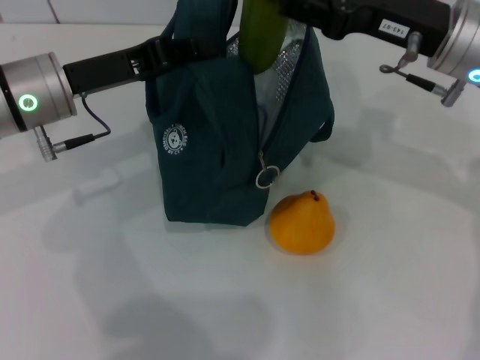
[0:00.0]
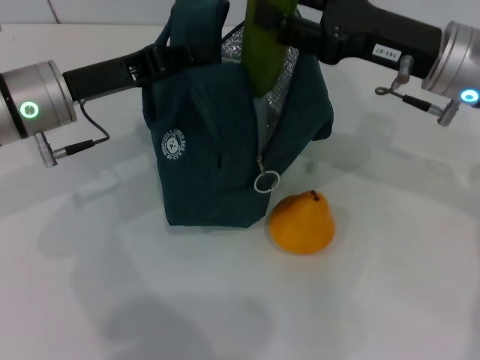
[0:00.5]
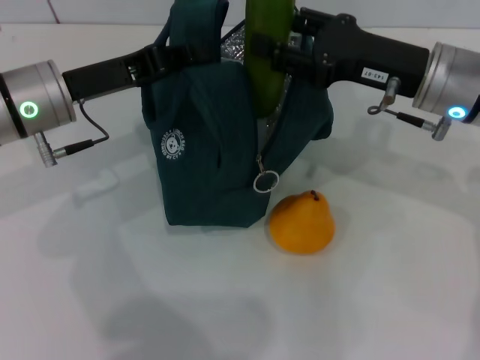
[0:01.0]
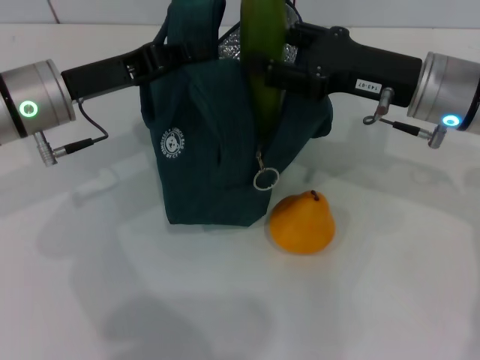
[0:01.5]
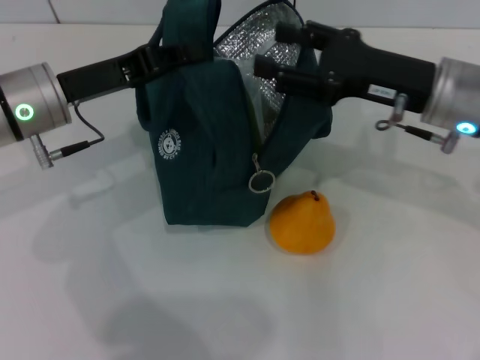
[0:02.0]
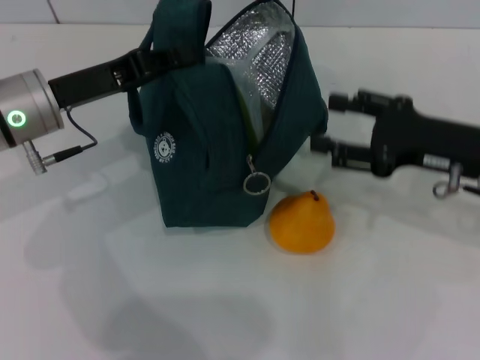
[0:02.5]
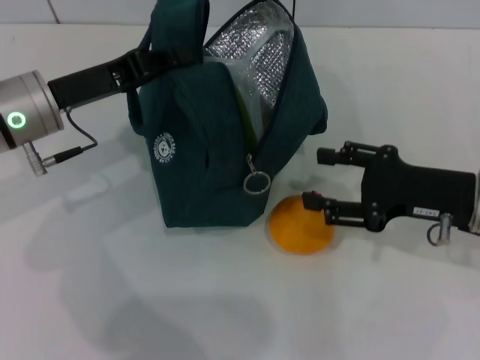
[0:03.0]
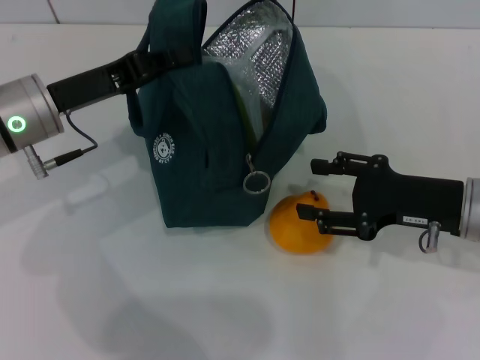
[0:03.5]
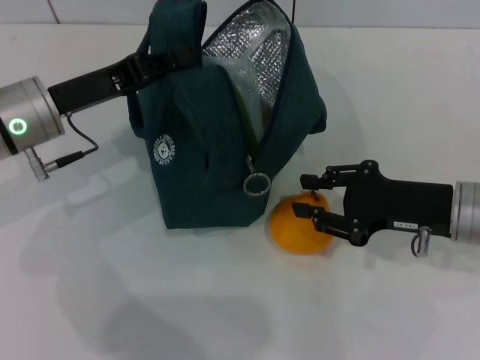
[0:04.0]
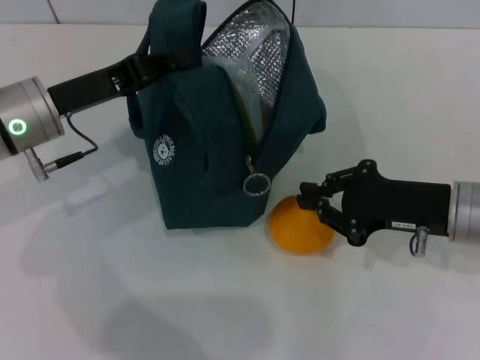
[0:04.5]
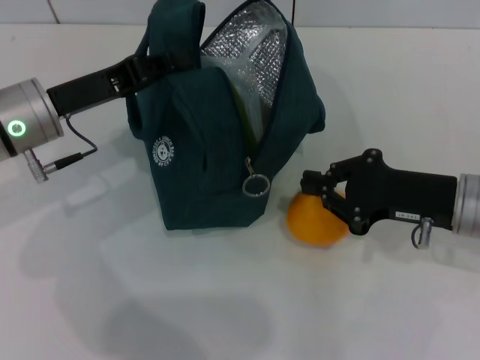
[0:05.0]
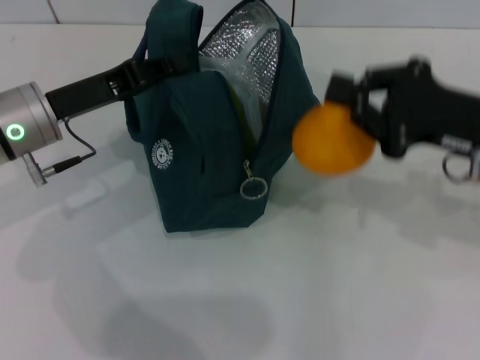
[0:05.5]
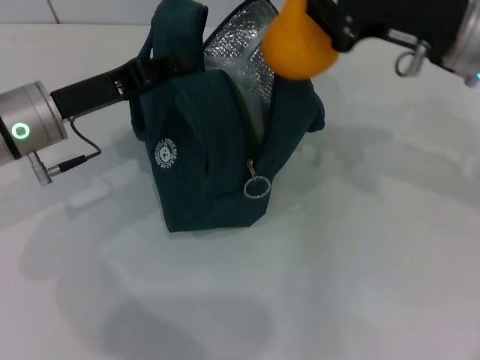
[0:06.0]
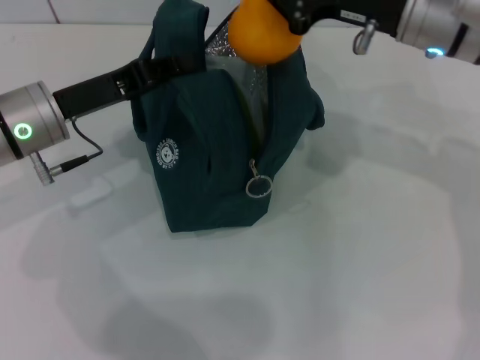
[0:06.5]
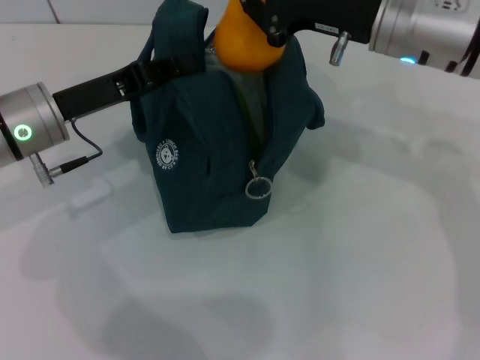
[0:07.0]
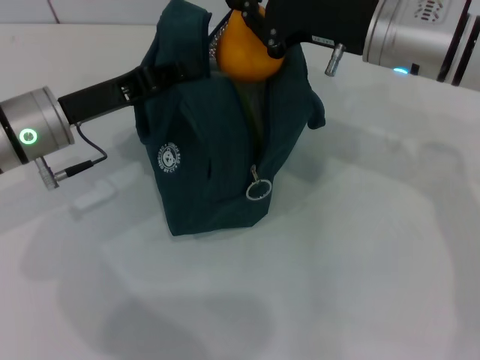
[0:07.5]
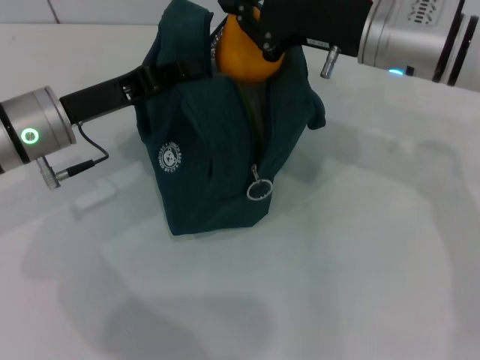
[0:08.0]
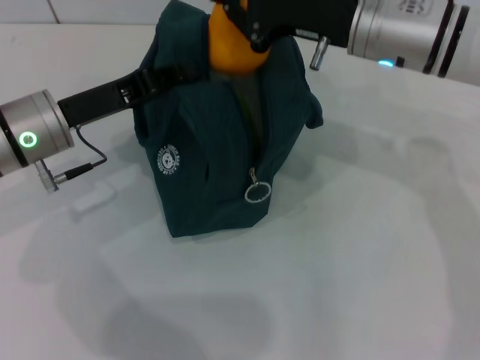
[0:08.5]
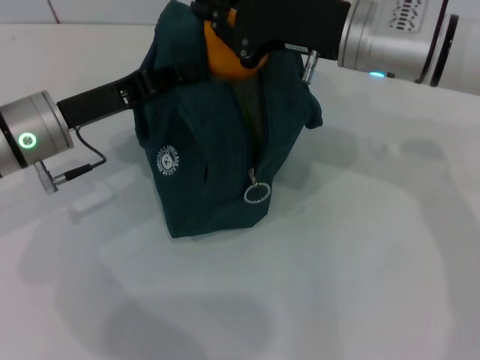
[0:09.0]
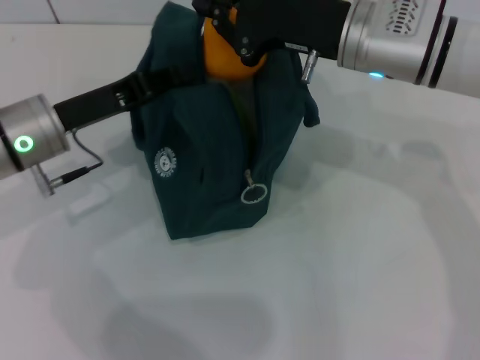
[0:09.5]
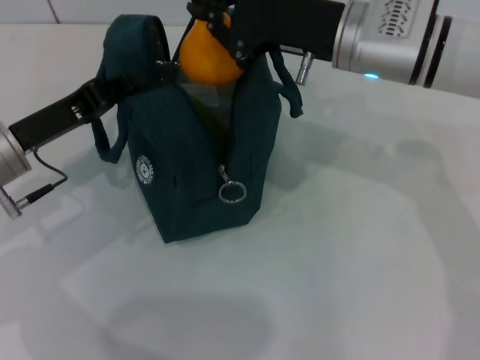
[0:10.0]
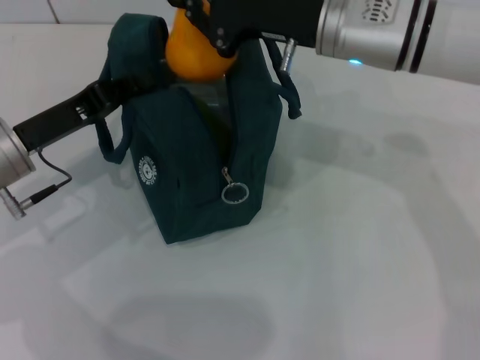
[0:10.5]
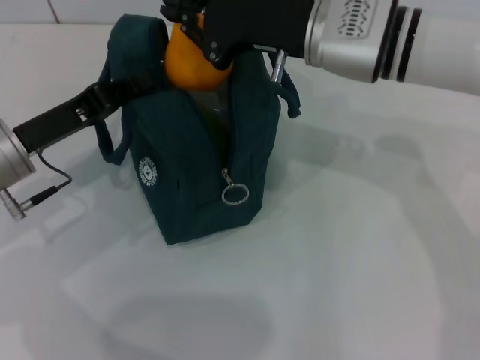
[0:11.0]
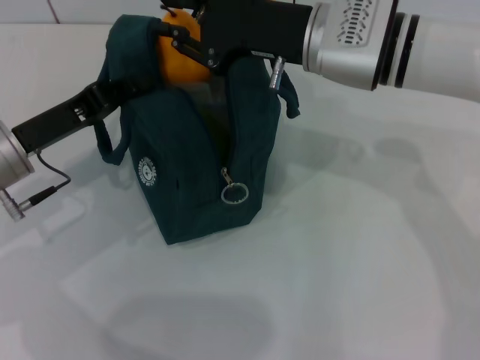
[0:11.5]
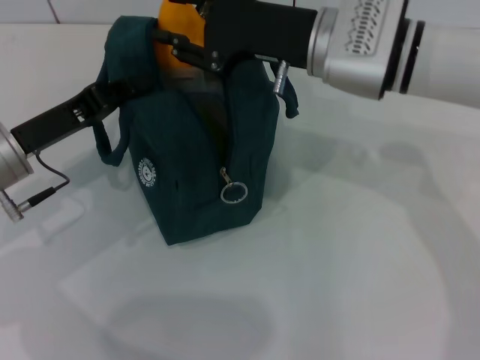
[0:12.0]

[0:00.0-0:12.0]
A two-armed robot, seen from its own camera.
Step, 0:00.0 to 0:02.0: Put the cucumber into the lunch bag with your right hand.
Step, 0:02.5 to 0:04.0: Grab the pear with your right hand.
0:00.0 to 0:02.0: The grippers move only a little.
0:02.0 to 0:04.0: The right gripper heads downward and backward, covering some 10 cm.
0:04.0 to 0:06.0: The right gripper is displaced upward and forward by some 15 cm, and closes up.
0:06.0 to 0:08.0: The right gripper shifts approximately 5 cm to the left.
0:08.0 to 0:10.0: The left gripper ends up about 5 cm from where it was.
0:10.0 to 0:12.0: There are only small adjustments of the grippers.

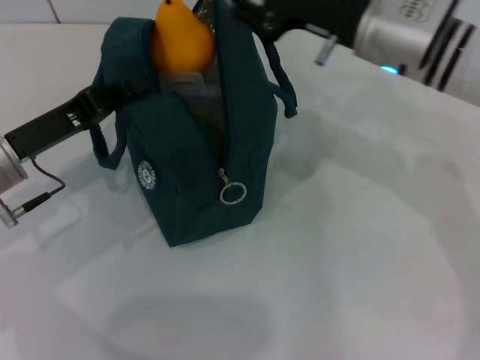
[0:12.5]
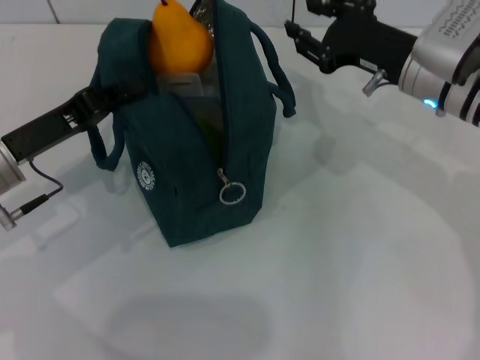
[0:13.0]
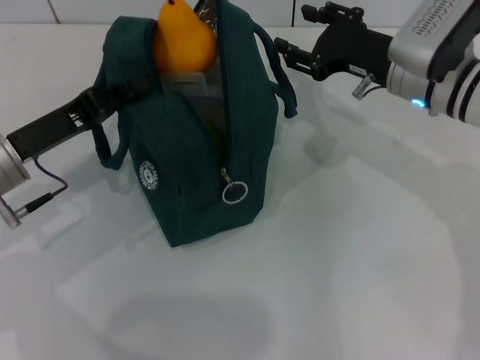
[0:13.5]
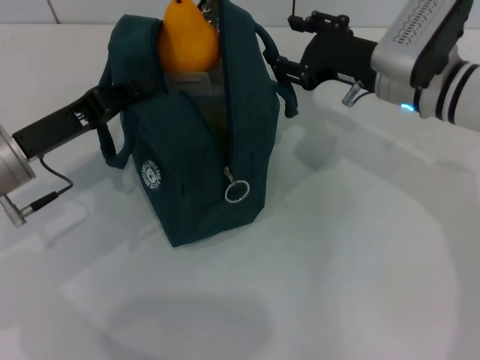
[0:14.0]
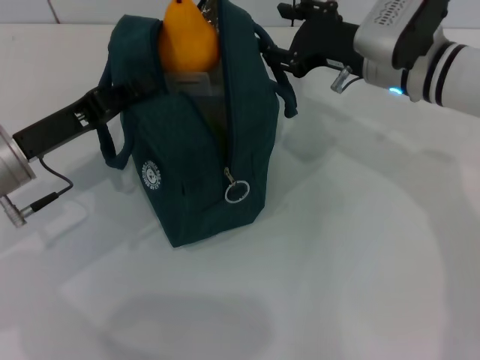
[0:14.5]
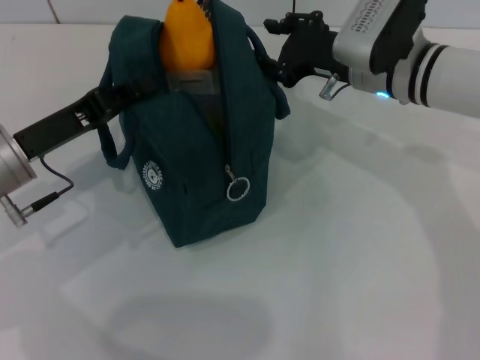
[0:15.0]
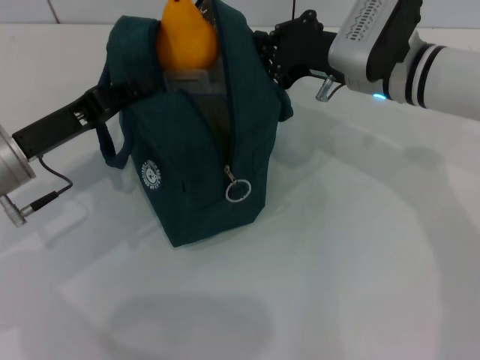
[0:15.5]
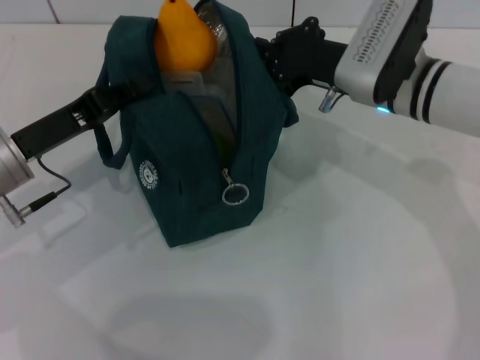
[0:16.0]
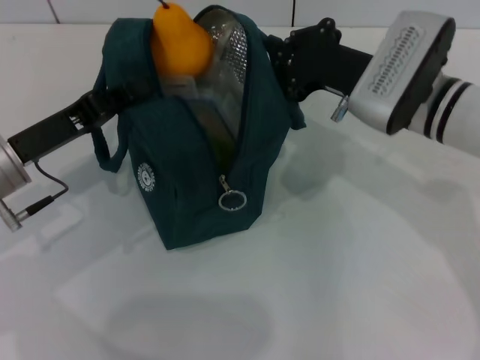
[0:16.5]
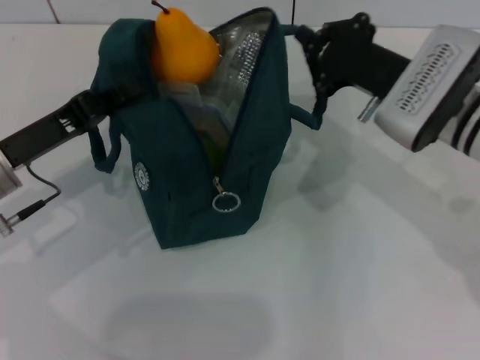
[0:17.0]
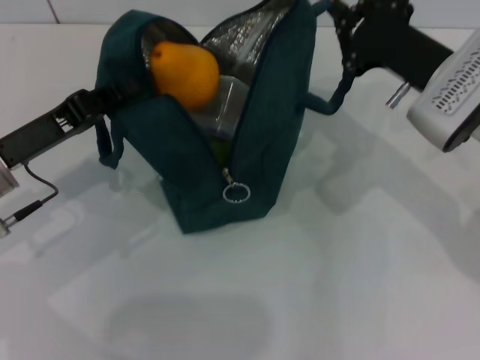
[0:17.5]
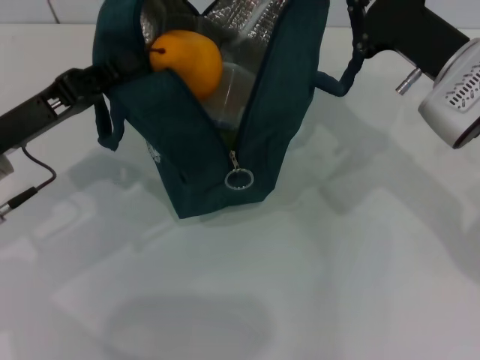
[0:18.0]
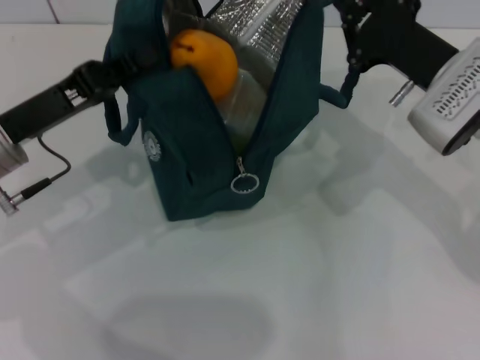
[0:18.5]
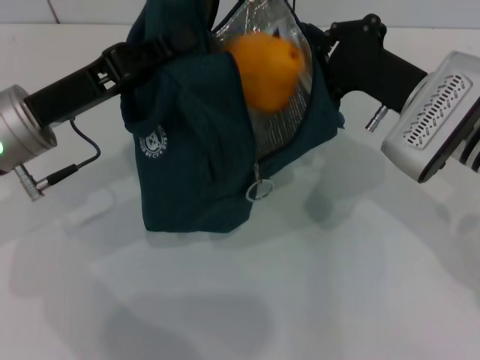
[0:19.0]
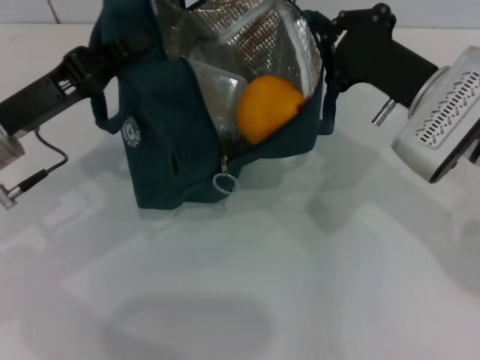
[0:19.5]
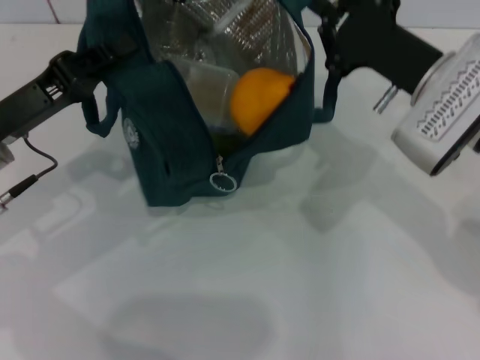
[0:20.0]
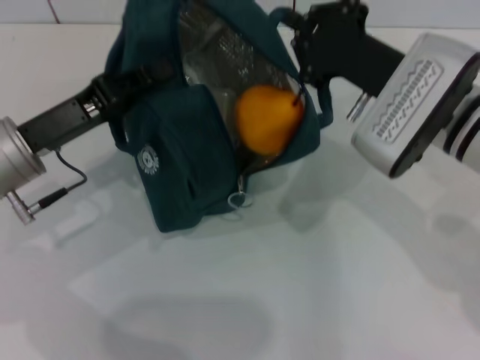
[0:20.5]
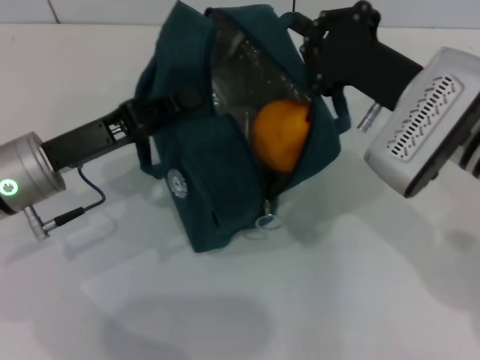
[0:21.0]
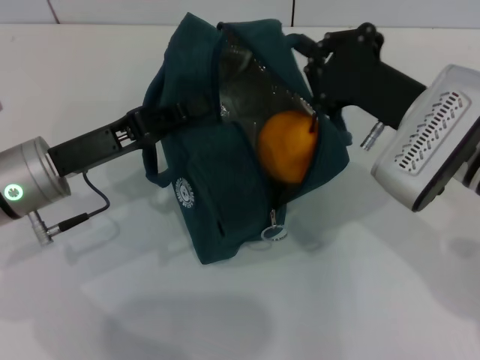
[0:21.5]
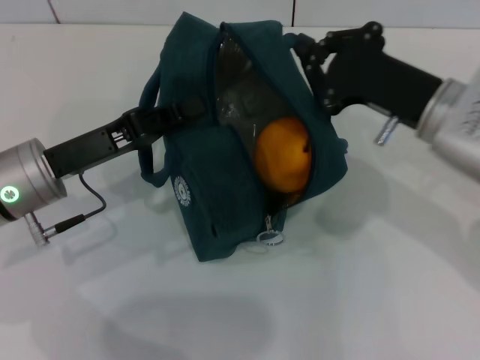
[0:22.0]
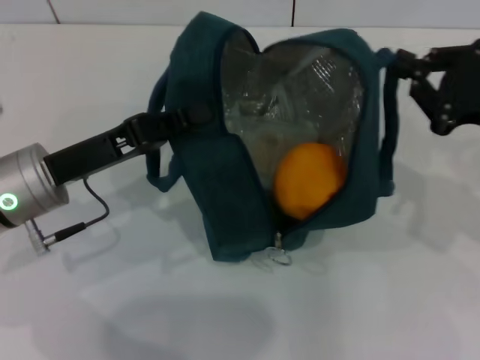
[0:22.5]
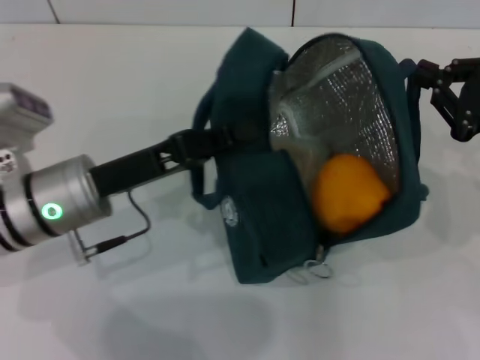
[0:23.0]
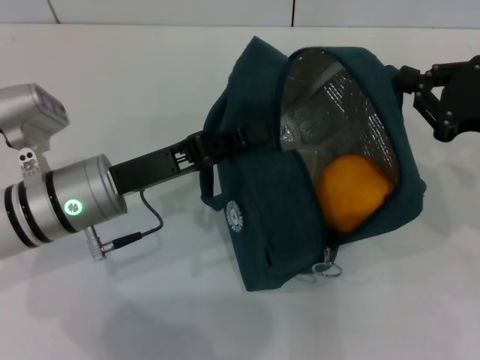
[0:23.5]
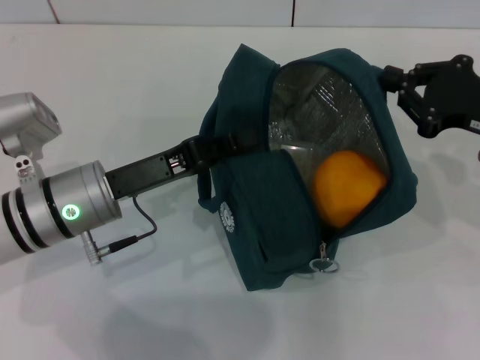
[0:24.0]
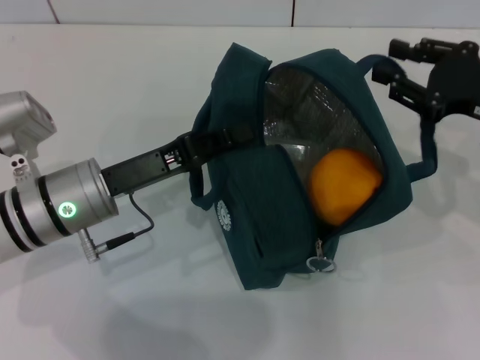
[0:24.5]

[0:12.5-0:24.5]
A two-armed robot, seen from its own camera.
0:14.5 to 0:16.5: The right gripper closes.
0:16.5 to 0:18.5: The right gripper goes about 5 cm to the right.
0:18.5 to 0:20.5: The right gripper changes place by about 5 cm.
0:20.5 to 0:22.5: The right gripper shifts roughly 15 cm to the right.

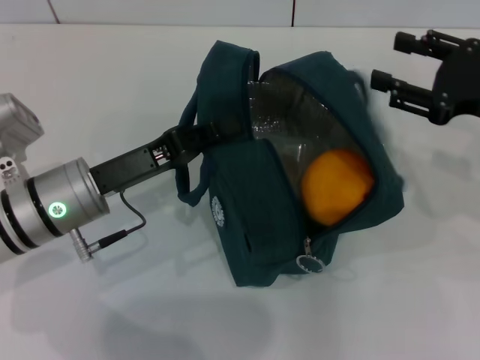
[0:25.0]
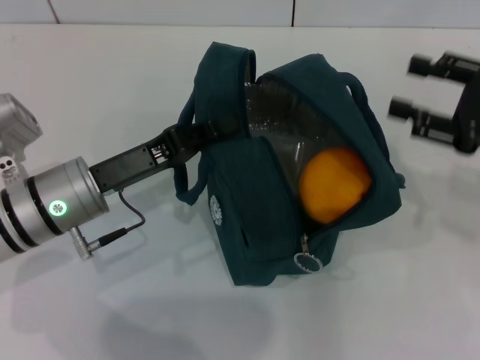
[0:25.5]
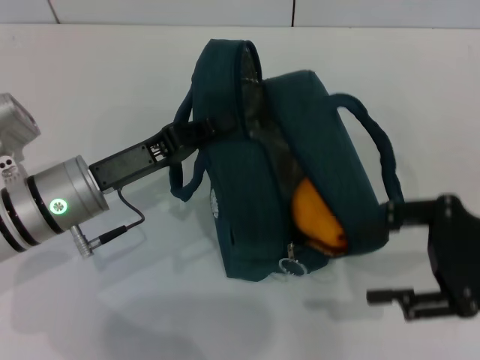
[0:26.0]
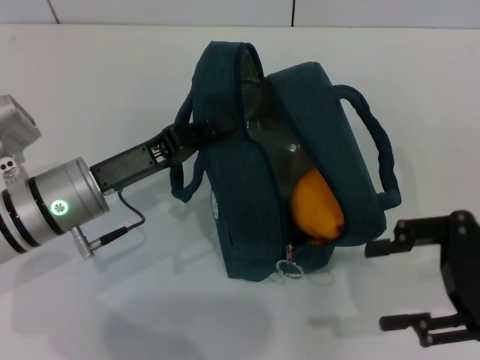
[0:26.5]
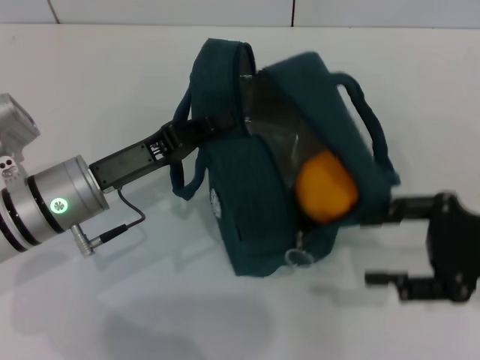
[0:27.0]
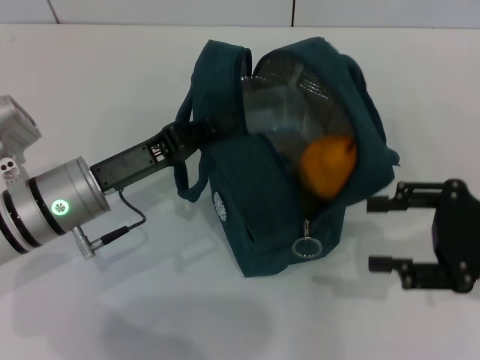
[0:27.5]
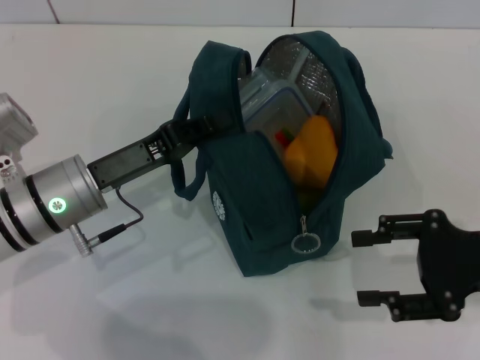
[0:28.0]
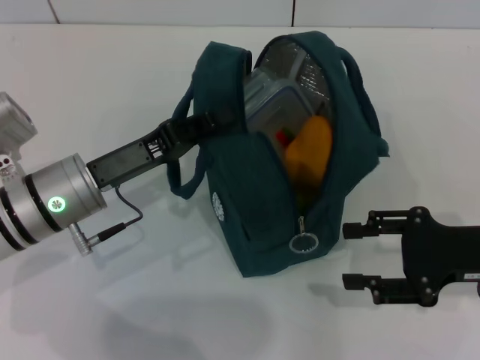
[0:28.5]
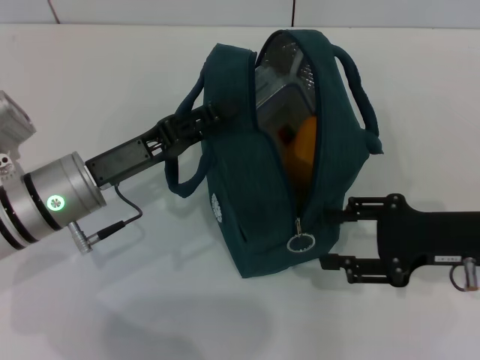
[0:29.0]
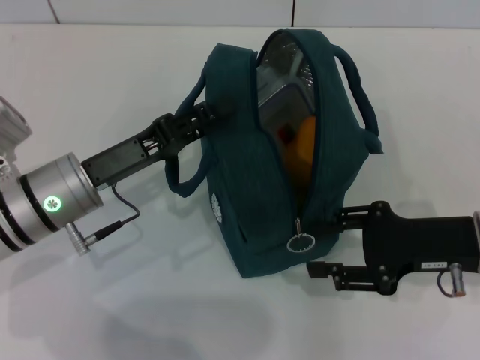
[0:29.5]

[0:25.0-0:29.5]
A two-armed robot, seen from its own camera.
0:25.0 to 0:27.0: The right gripper travels backward by approximately 5 cm.
0:27.0 to 0:29.5: The right gripper ends up about 5 cm from where it was. The left gripper opens up.
